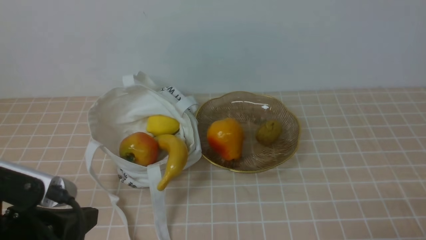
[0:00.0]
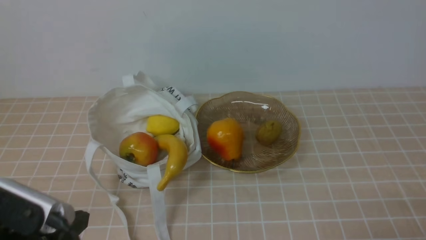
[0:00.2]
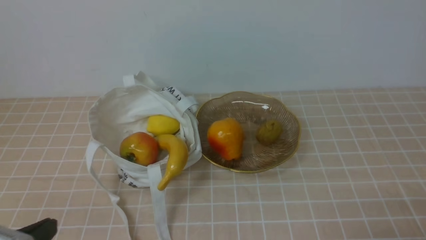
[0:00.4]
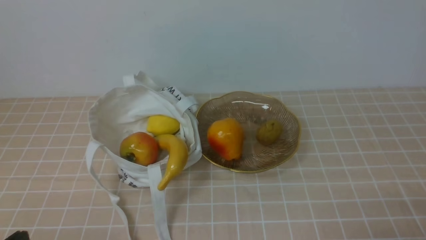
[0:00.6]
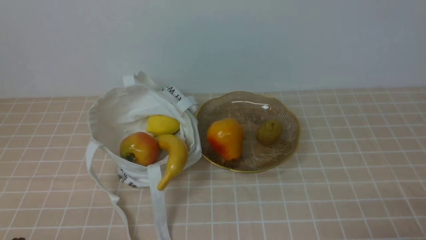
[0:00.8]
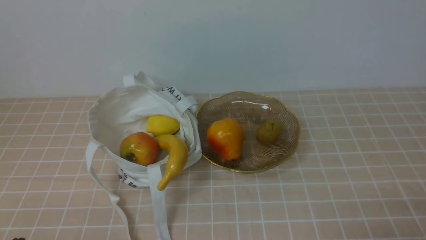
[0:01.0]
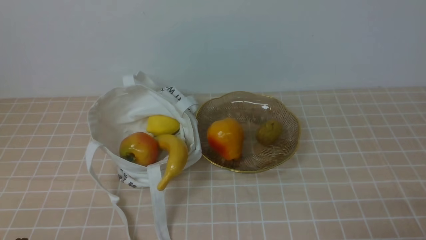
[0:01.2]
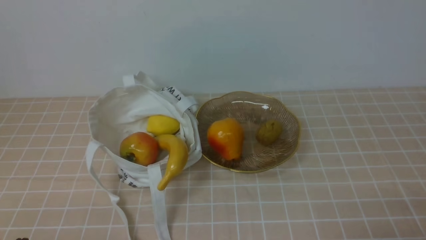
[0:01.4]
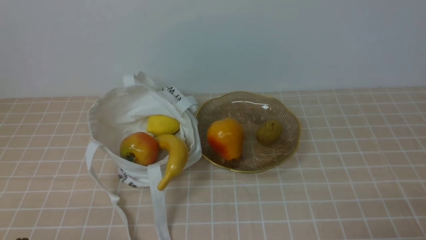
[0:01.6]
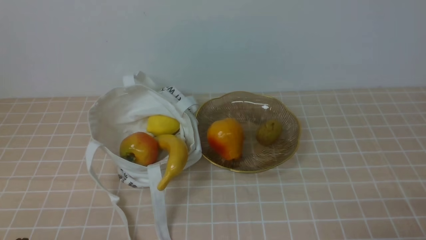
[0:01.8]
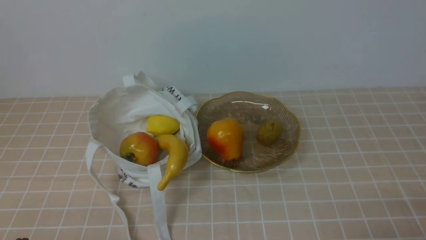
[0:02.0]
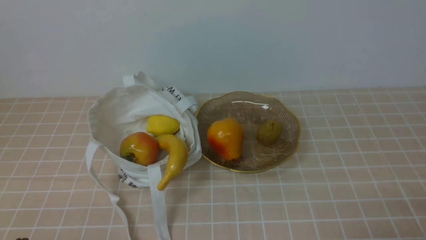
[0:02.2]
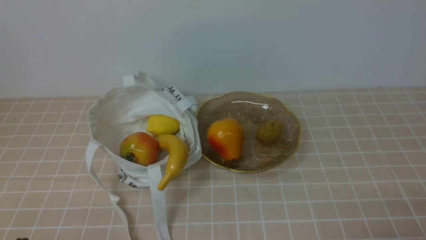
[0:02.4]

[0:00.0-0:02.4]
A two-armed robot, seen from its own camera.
0:00.0 to 0:01.2: The left gripper moves downward, to the left and backward, some 10 cm.
0:01.2 to 0:02.4: The two grippers keep their place.

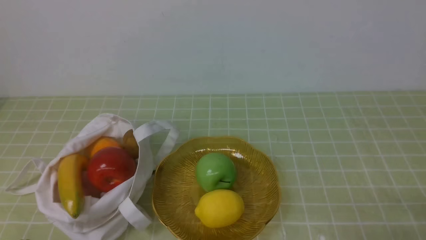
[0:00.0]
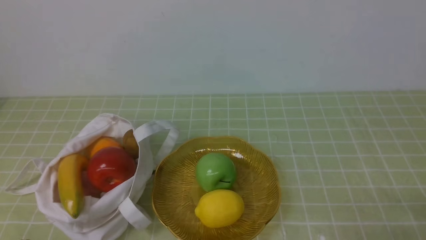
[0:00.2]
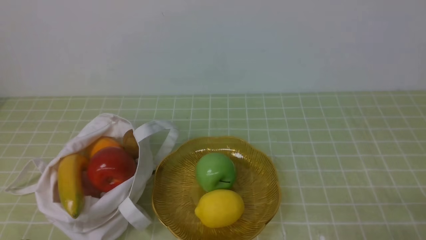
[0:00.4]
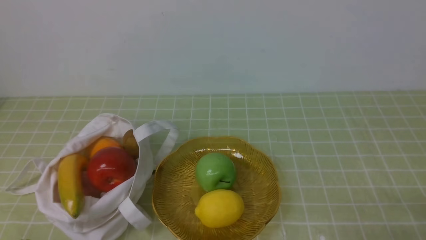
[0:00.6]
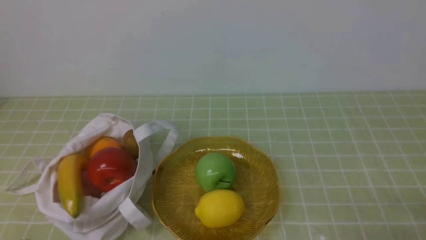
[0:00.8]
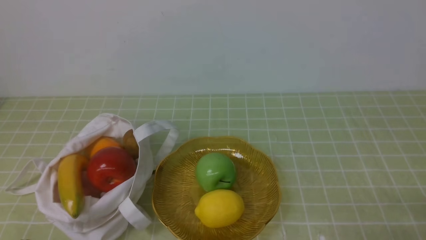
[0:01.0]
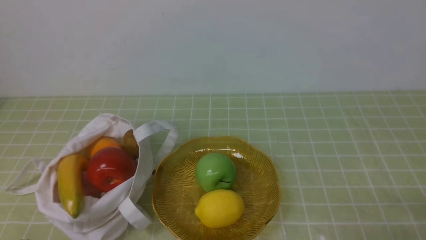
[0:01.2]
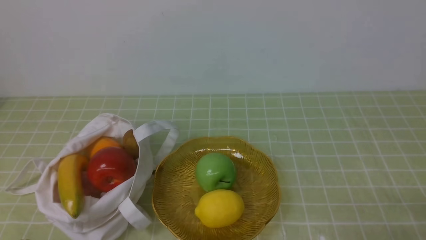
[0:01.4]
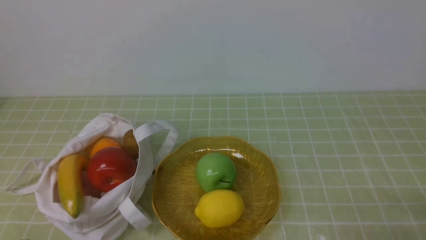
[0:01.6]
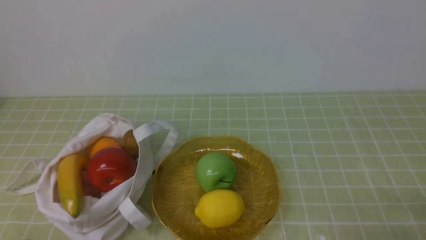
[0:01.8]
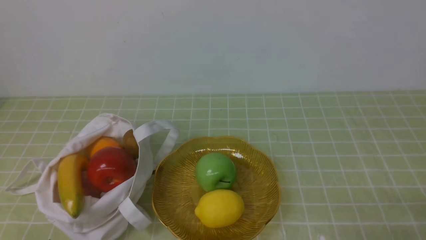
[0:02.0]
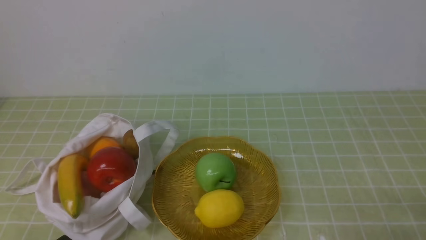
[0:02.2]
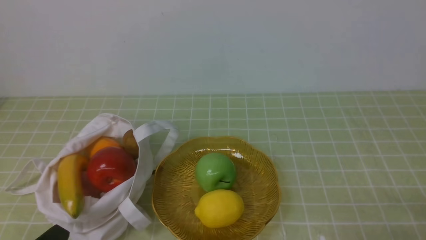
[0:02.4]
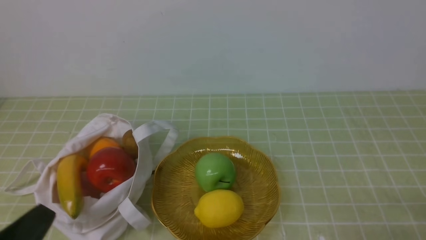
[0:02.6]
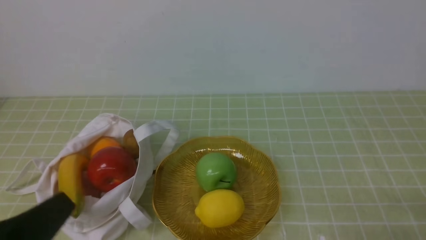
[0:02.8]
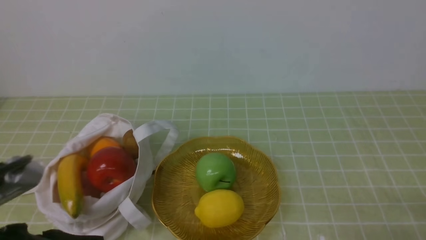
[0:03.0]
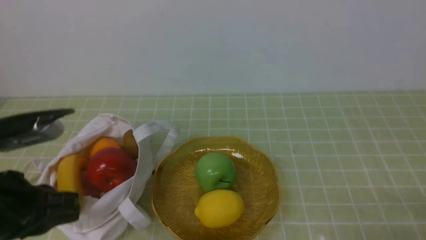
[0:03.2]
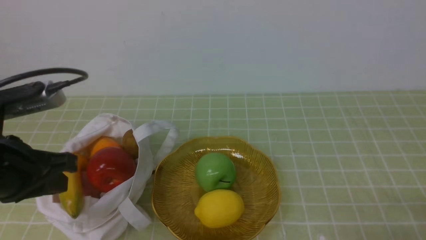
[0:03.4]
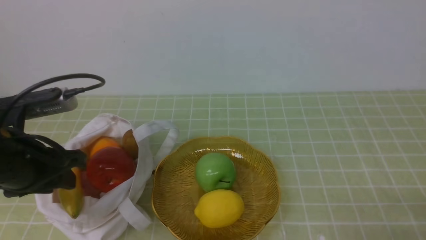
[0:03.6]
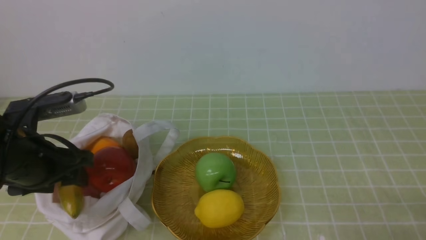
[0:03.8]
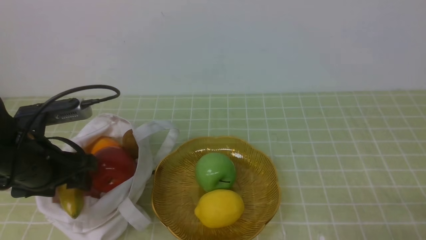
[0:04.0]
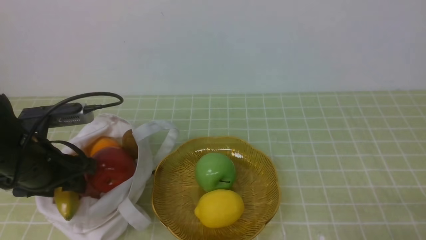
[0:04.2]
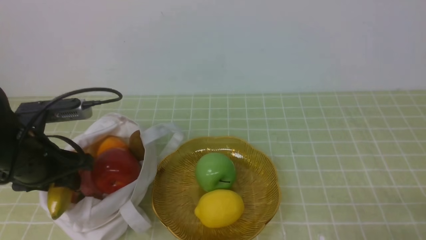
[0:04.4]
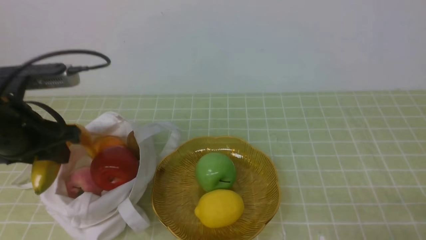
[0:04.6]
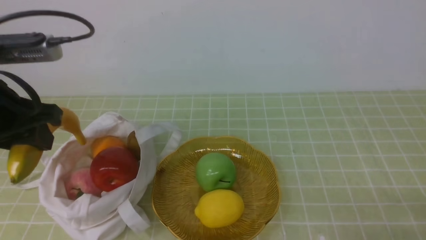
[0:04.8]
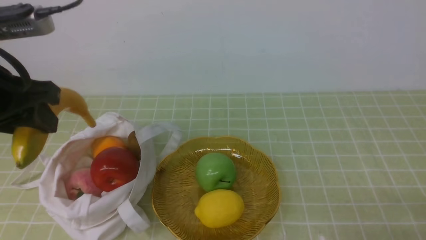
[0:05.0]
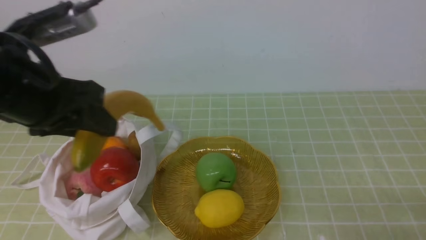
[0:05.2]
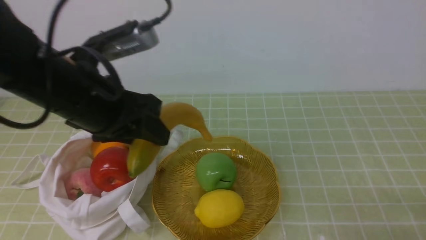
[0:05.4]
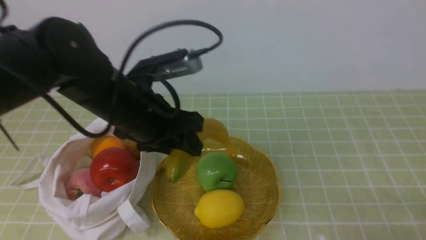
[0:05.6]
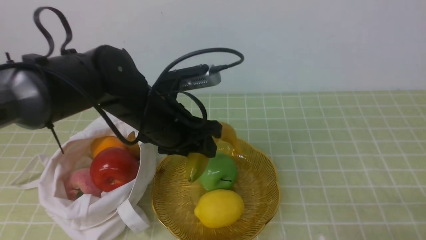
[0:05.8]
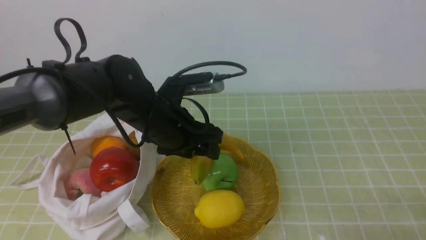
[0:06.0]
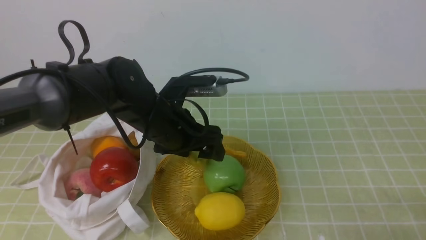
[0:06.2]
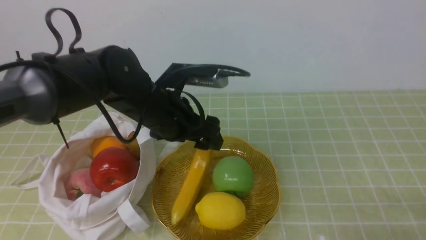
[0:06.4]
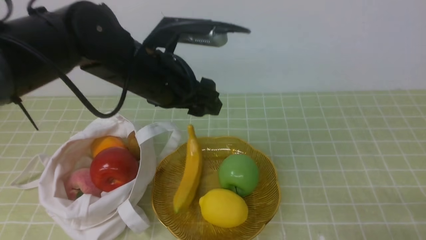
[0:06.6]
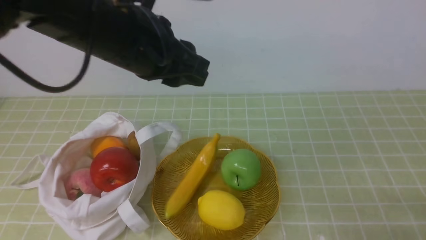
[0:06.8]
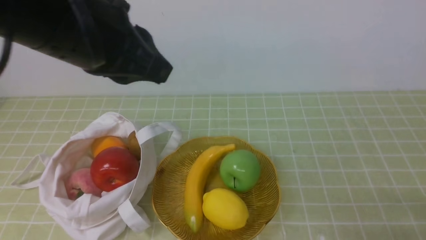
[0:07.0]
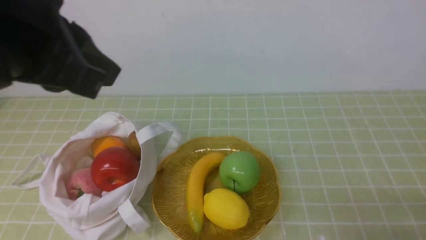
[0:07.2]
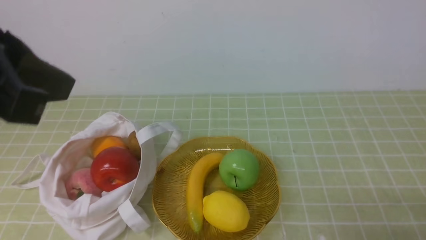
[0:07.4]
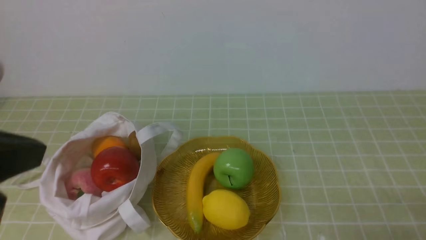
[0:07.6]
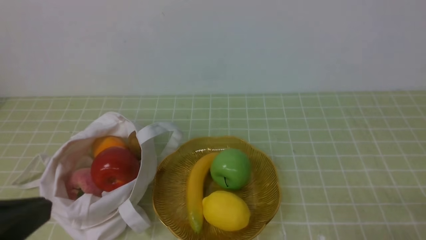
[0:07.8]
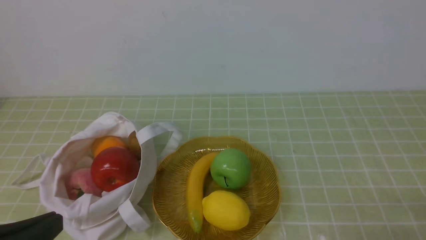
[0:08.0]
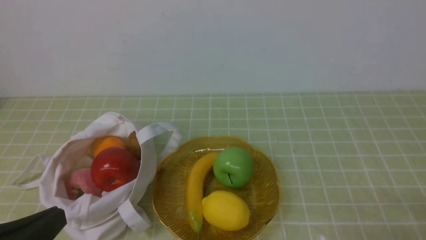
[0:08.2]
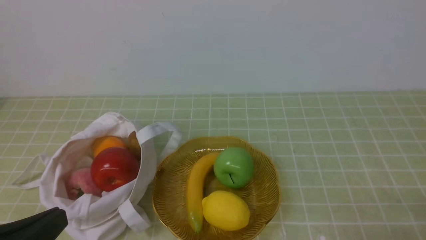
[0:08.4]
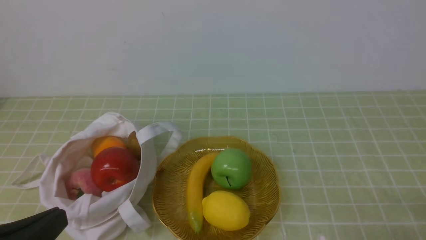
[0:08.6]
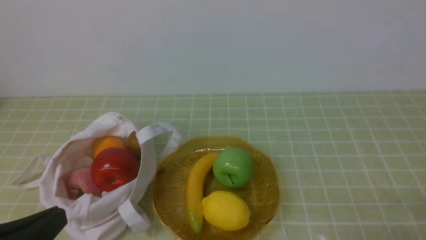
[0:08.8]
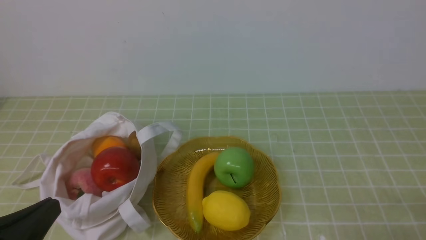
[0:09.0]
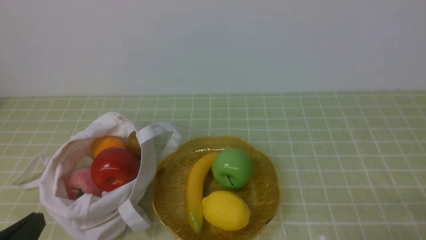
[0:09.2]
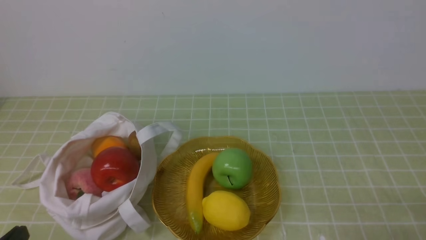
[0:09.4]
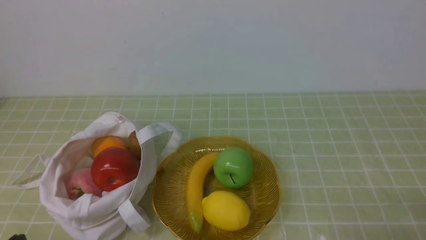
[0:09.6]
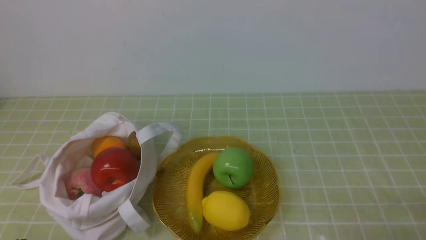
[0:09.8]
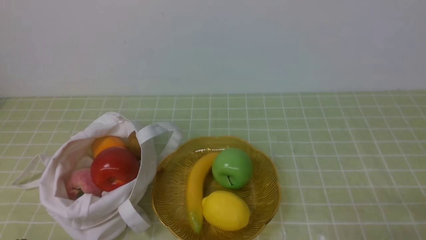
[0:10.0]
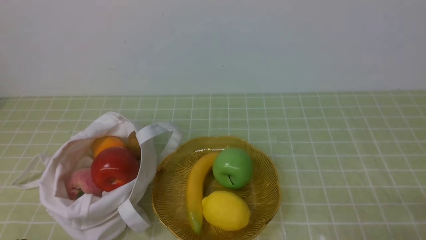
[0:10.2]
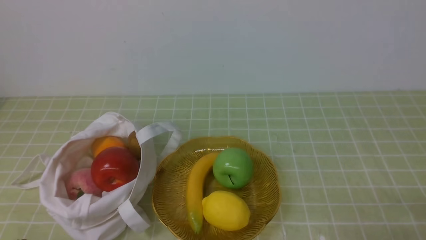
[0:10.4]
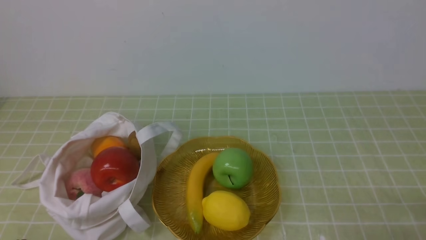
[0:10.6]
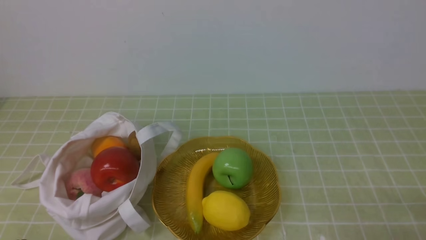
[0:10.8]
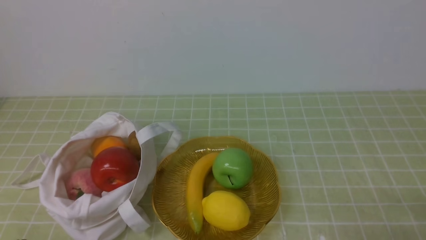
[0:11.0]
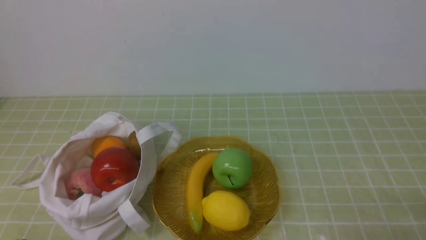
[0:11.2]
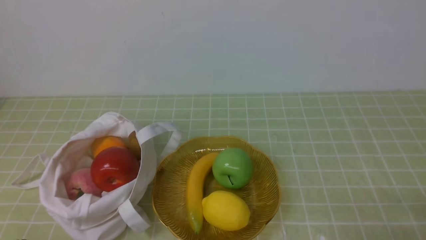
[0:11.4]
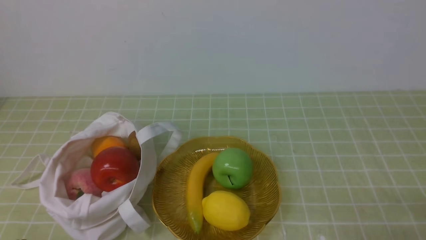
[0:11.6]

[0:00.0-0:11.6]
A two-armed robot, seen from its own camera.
Step, 0:00.0 to 0:04.4: use the left arm to grab a banana from the bag.
Step, 0:04.6 to 0:06.2: use the left arm to put the banana into the empty plate on the right.
0:00.0 to 0:01.4: The two grippers keep their place.
0:01.4 to 0:02.8: The left gripper shifts approximately 10 cm upward.
0:02.8 to 0:04.4: The left gripper travels forward by approximately 20 cm, and opens up.
0:04.4 to 0:05.8: The left gripper goes some 15 cm to the right.
0:05.8 to 0:07.2: The left gripper heads upward and backward, covering some 25 cm, and closes its fingers.
0:07.2 to 0:08.8: The left gripper is displaced downward and backward by about 20 cm.
0:08.8 to 0:10.2: The left gripper moves downward, approximately 10 cm.
0:10.2 to 0:11.6: Neither gripper changes place.
